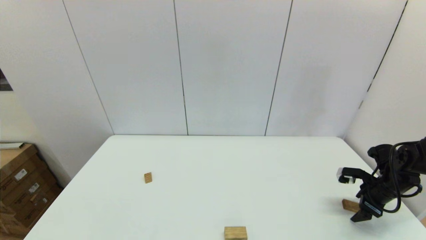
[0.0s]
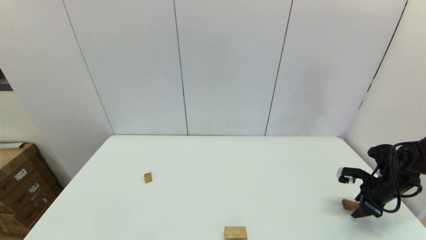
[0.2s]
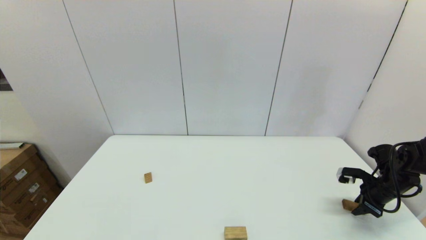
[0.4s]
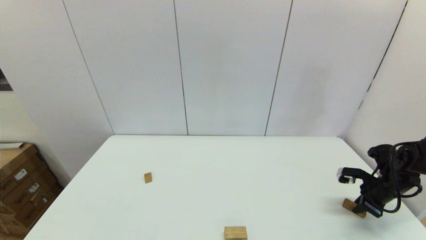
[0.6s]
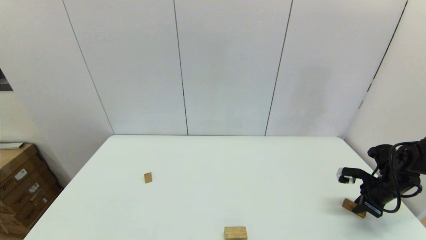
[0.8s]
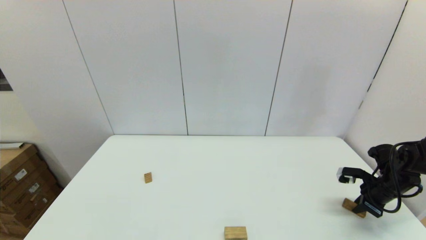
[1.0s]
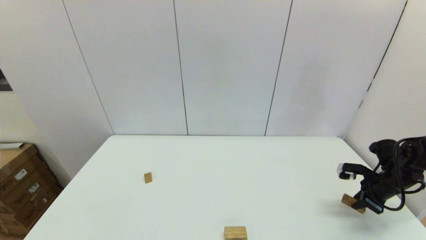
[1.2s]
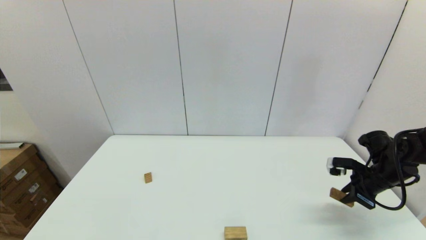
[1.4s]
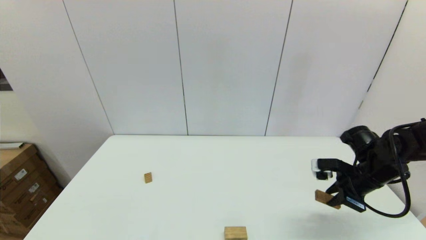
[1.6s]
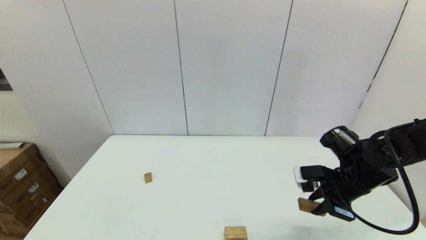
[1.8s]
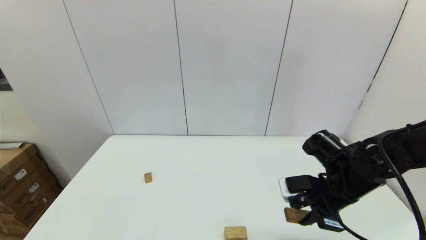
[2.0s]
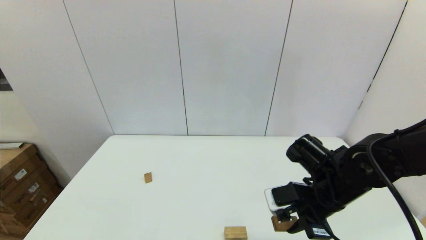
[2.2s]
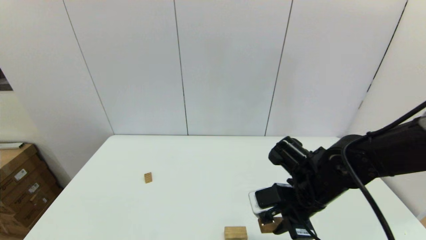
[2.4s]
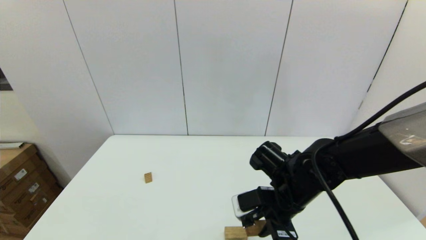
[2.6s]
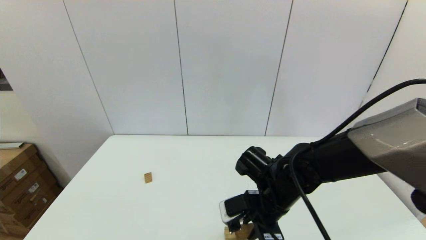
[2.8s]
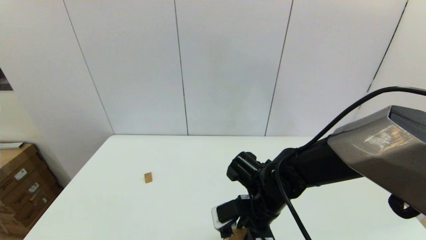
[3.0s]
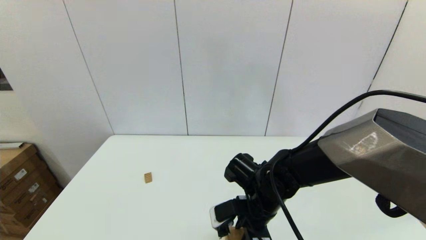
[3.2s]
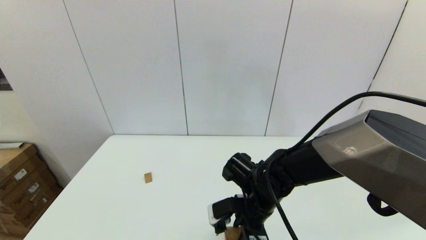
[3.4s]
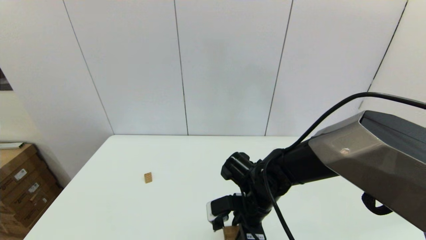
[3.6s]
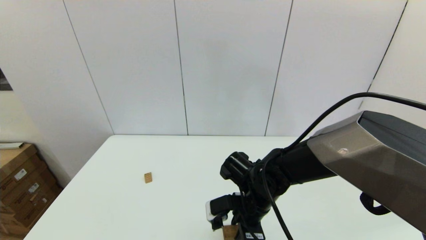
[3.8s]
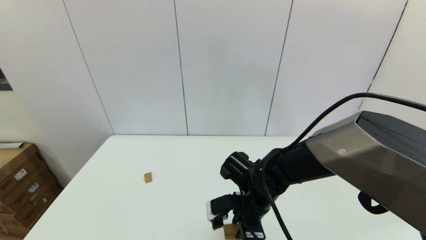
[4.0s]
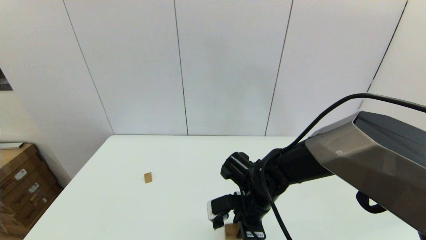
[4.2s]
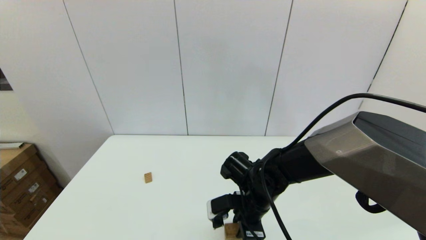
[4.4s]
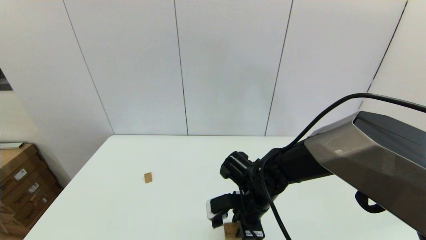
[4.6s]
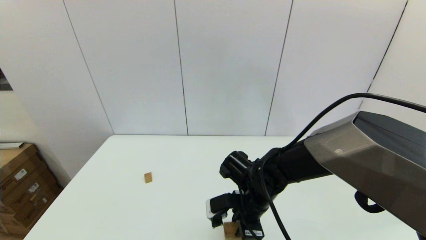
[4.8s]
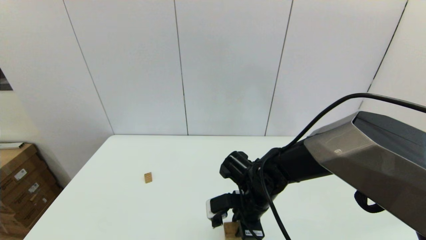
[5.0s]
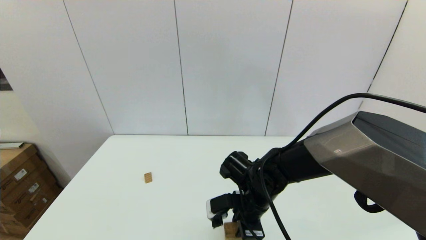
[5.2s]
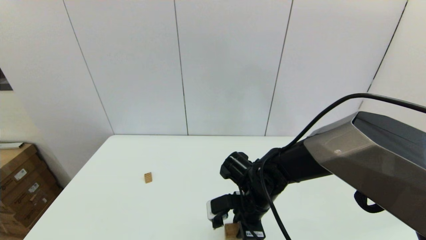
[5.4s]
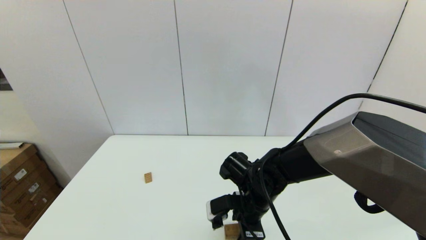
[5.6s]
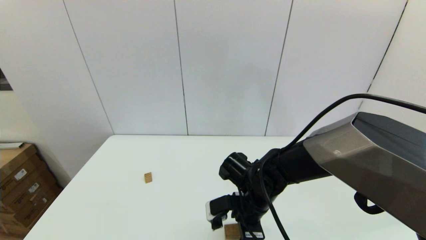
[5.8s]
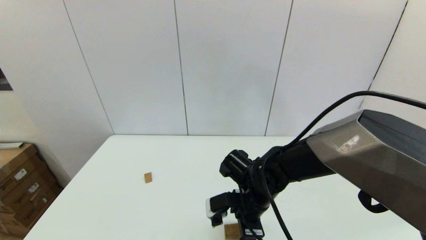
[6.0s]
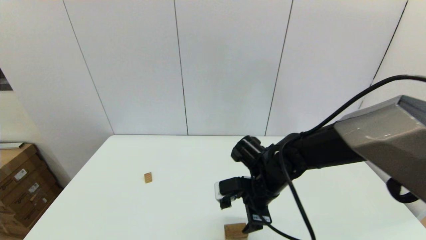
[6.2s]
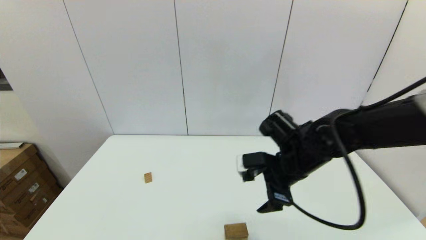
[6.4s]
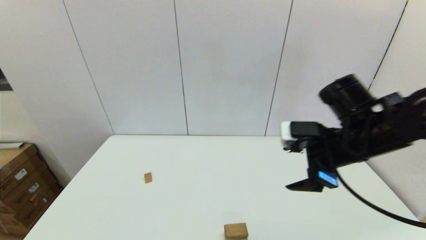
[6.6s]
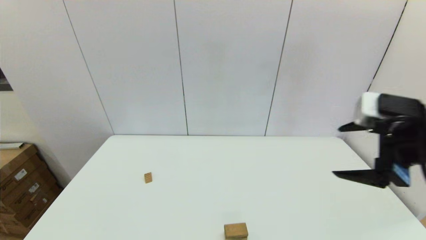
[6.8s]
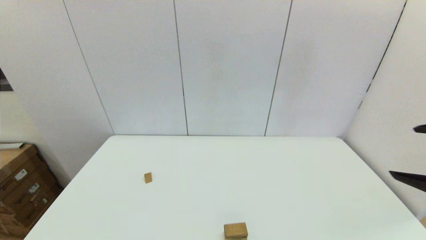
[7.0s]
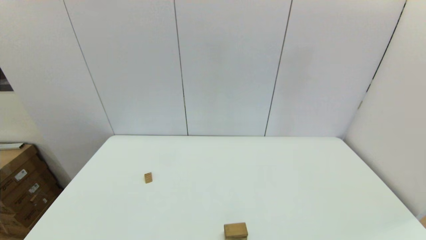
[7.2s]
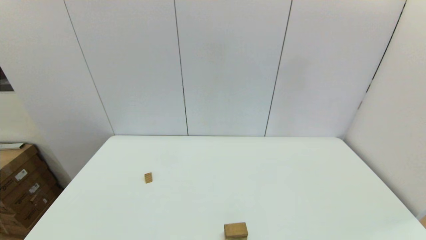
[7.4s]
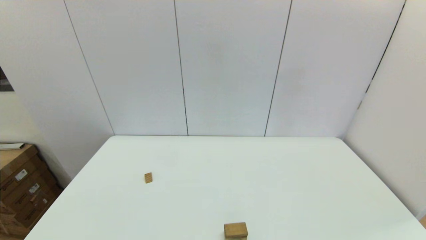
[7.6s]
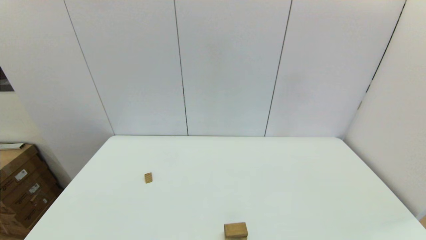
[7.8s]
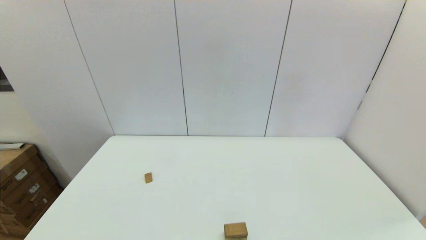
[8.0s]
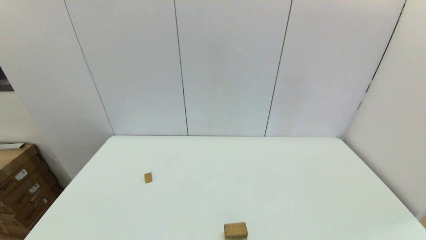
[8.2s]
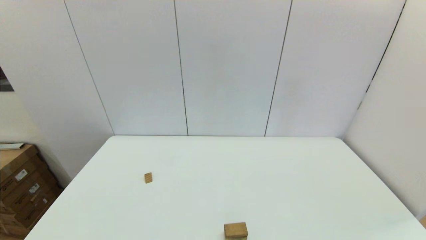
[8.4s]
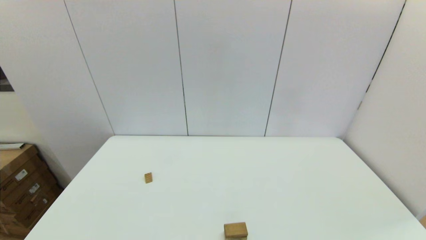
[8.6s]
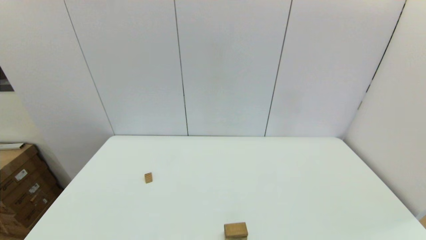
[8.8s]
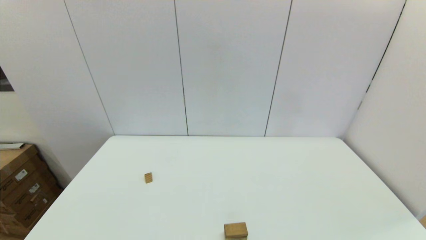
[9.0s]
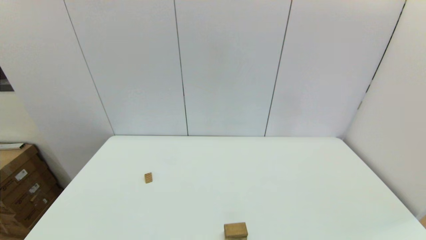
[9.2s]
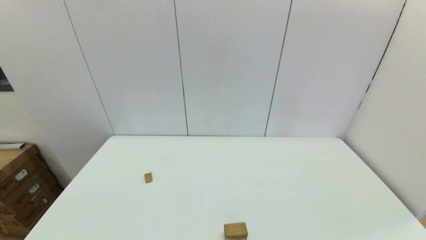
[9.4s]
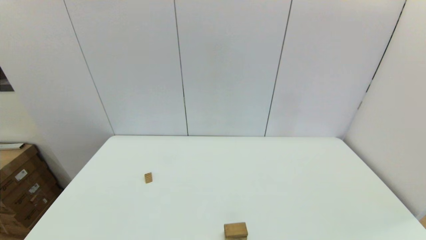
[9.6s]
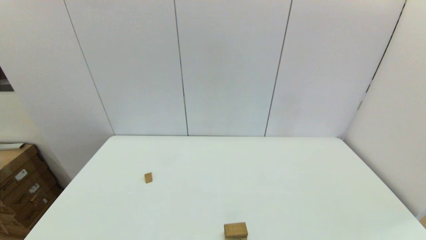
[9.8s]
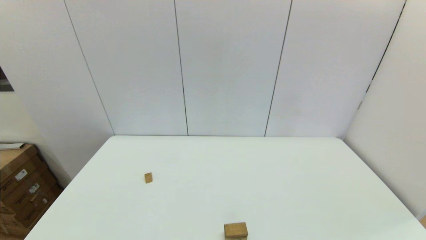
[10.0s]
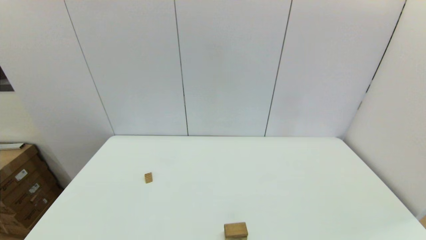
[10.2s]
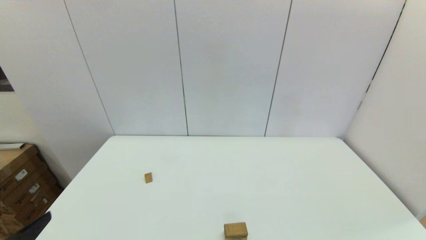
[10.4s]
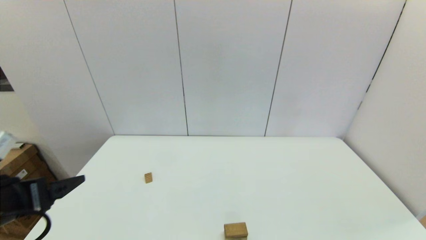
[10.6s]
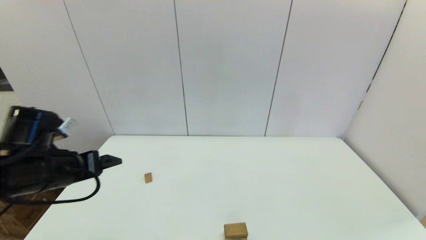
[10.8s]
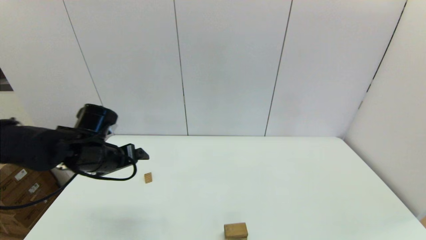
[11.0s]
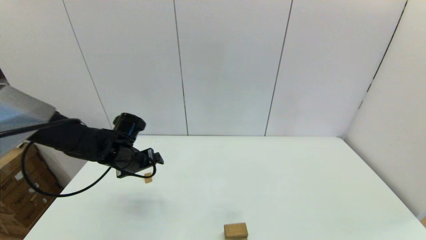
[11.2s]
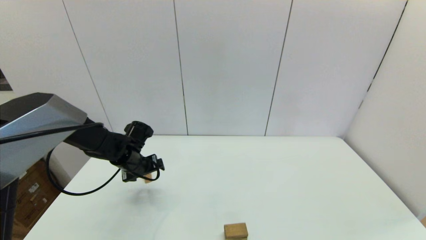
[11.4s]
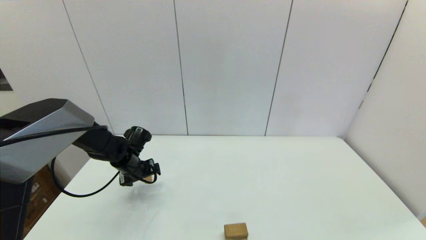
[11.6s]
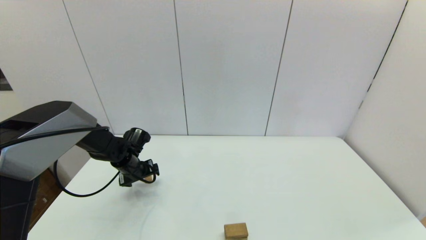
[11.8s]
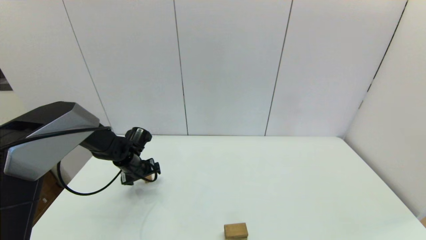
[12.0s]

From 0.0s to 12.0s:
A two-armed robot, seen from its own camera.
Task of the whole recording: place the arched building blocks in the center of the table, set up the rectangular building blocks, and then set up the triangular building blocks.
Step, from 0.8s to 5.4s: Place the box-shaped block onto the arch-shaped block with the right gripper.
From 0.0s to 1.6s: The right gripper travels to the left and upward by about 15 cm, and closes up.
From 1.6s to 3.0s: The right gripper heads to the left, covering approximately 25 cm.
From 3.0s to 4.4s: There are only small adjustments of the grippers.
From 4.4s to 6.0s: The right gripper opens its fingers.
From 6.0s to 7.6s: The right gripper is displaced backward, to the right and upward by some 40 cm.
From 10.4s to 12.0s: The left gripper goes about 40 cm forward and downward.

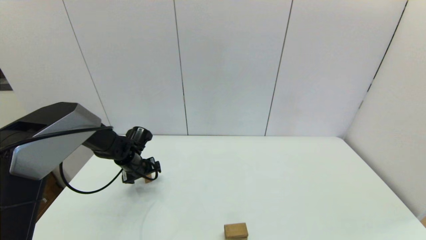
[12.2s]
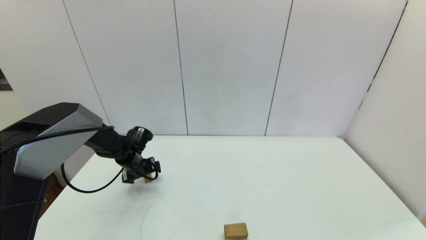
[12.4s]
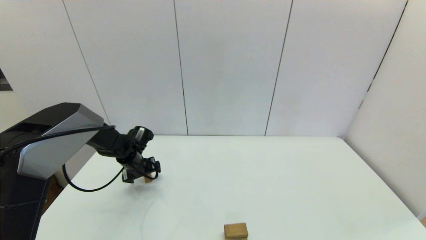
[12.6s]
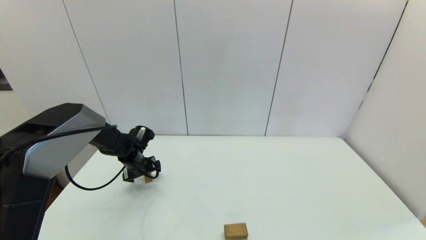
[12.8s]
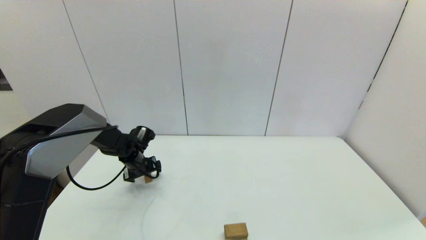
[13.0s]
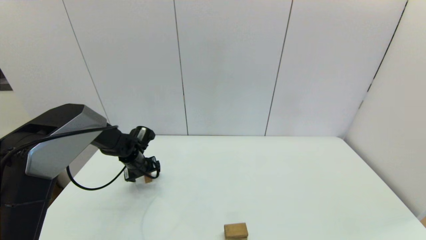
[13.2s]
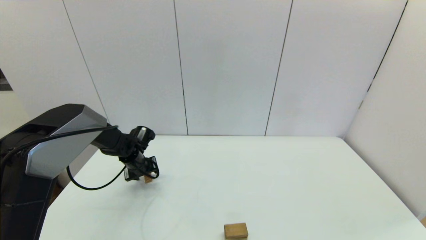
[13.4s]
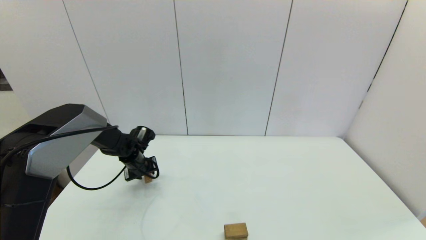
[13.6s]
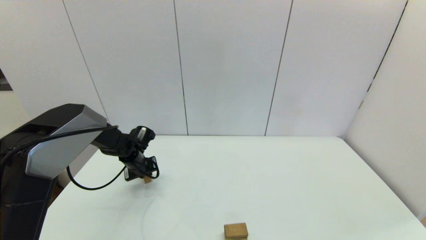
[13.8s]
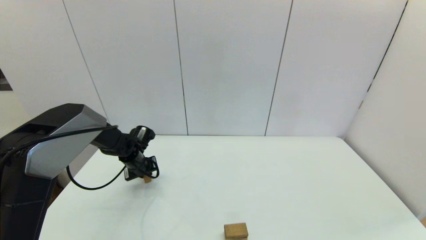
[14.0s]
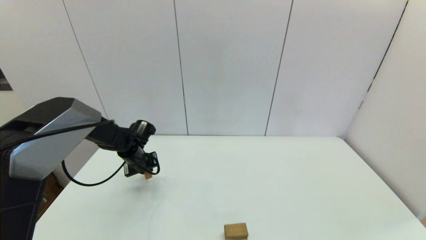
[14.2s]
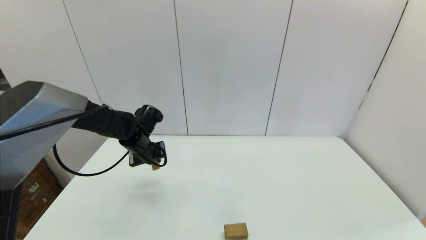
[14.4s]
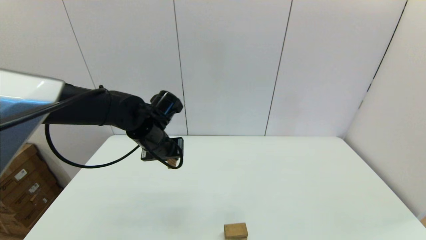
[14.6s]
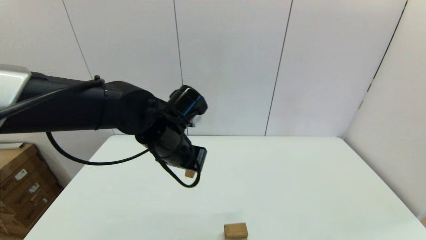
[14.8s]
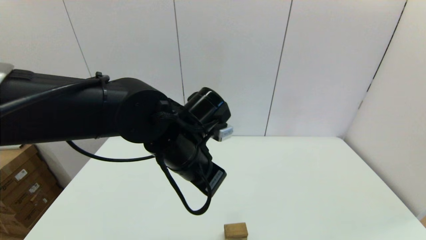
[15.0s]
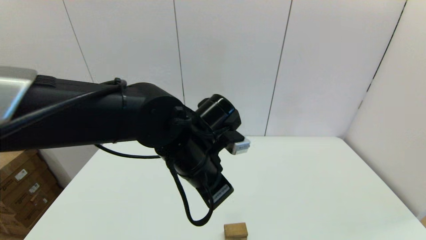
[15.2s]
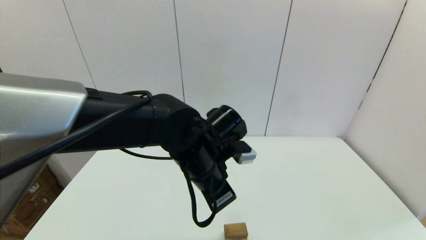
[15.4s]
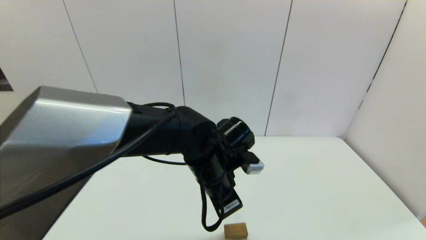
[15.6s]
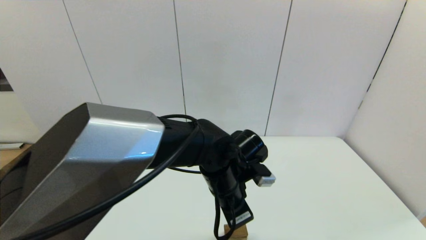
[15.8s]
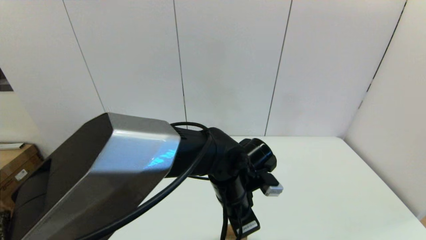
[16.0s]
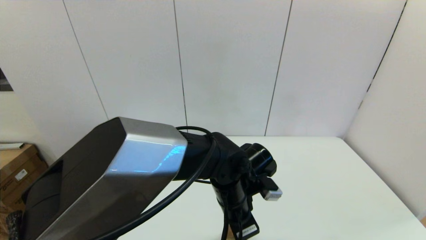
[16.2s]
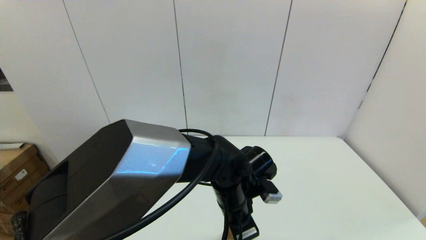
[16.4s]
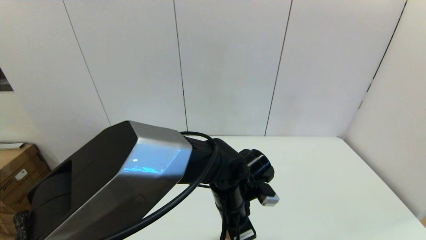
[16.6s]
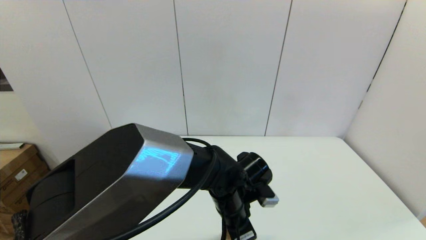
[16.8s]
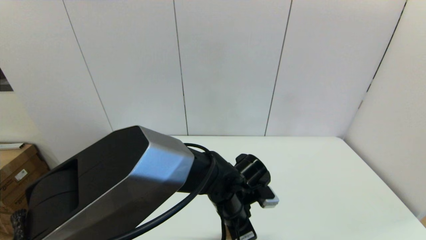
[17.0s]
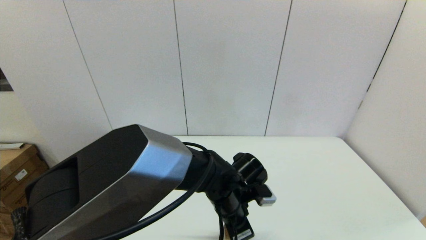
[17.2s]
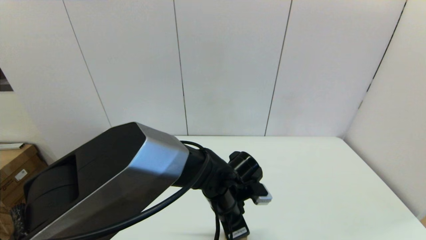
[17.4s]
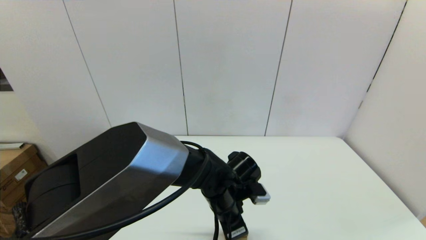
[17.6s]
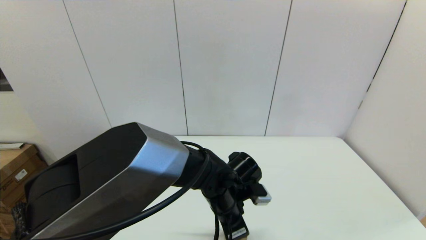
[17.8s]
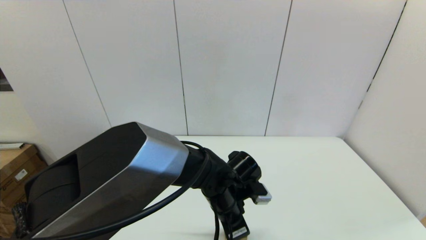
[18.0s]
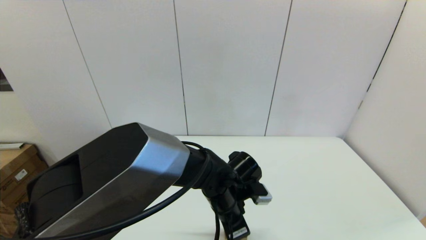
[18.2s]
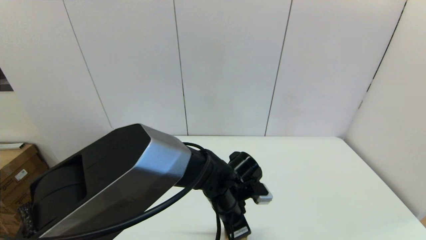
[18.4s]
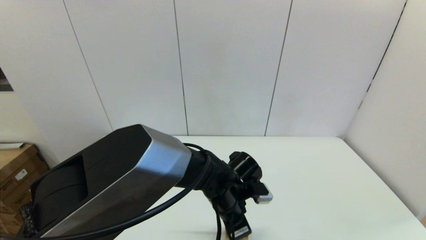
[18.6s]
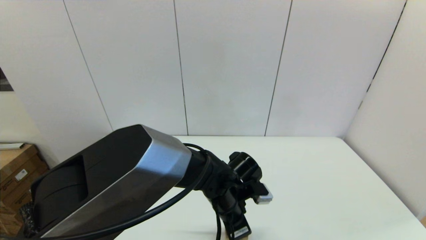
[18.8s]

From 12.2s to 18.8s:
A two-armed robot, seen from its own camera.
Task of the whole recording: place the arched building blocks in the center of the table, set up the rectangular building blocks, and then set up the triangular building blocks.
From 12.2s to 13.8s: The left gripper closes up.
From 13.8s to 15.4s: The left gripper travels to the right, upward and backward by some 30 cm.
From 15.4s to 17.2s: The left gripper goes roughly 10 cm downward.
From 17.2s to 18.8s: The two grippers keep their place.
